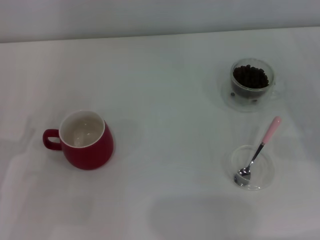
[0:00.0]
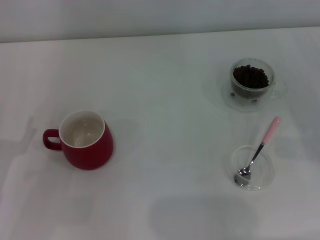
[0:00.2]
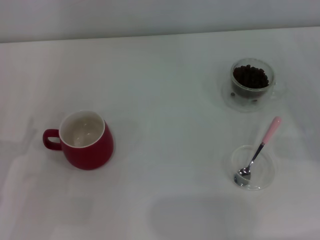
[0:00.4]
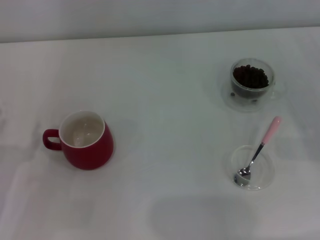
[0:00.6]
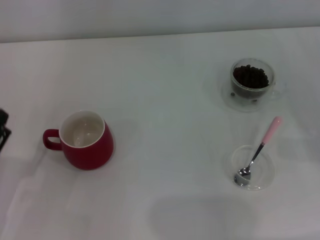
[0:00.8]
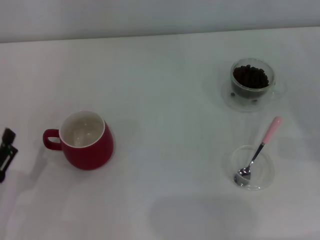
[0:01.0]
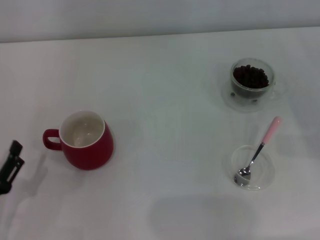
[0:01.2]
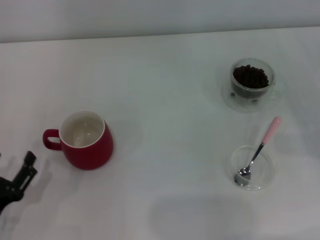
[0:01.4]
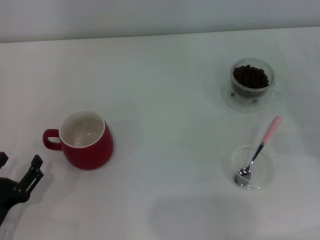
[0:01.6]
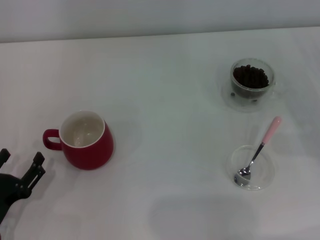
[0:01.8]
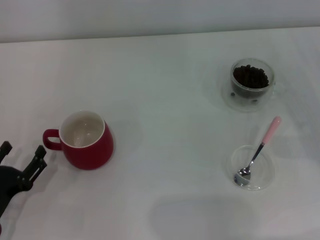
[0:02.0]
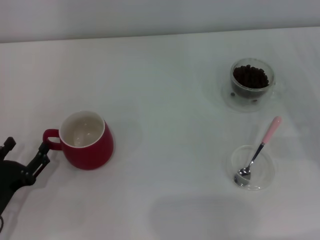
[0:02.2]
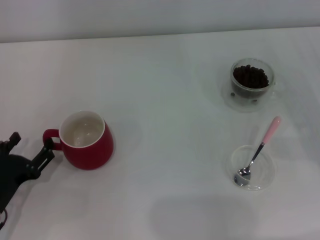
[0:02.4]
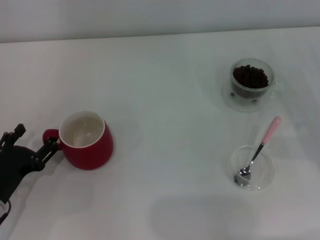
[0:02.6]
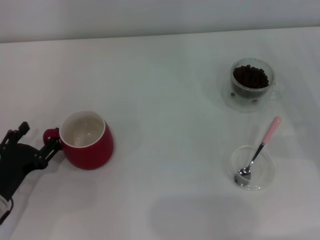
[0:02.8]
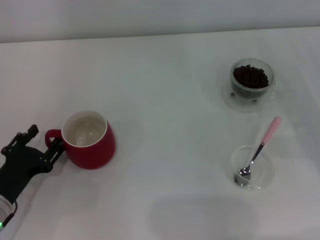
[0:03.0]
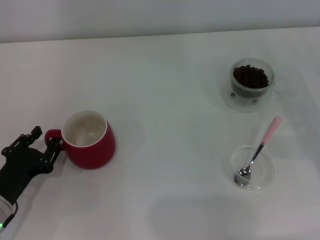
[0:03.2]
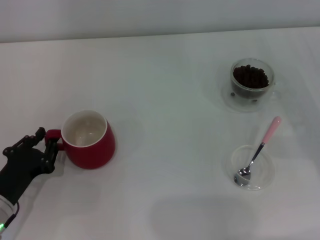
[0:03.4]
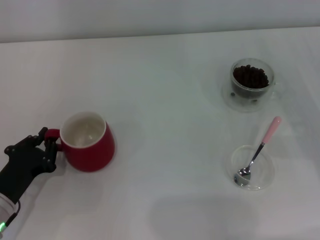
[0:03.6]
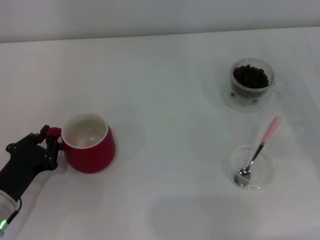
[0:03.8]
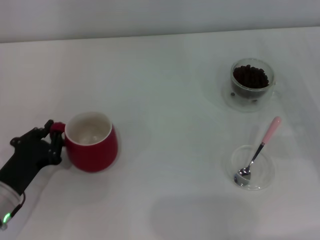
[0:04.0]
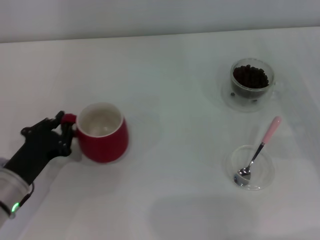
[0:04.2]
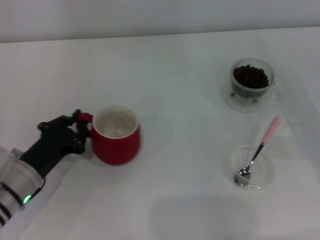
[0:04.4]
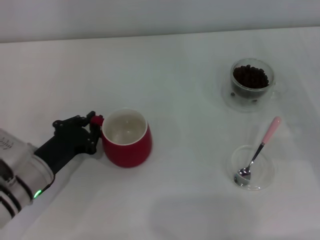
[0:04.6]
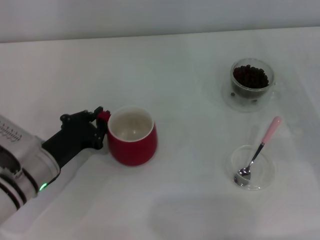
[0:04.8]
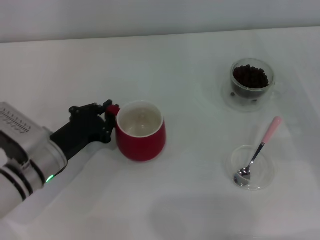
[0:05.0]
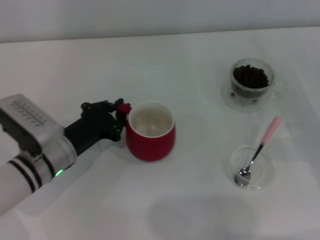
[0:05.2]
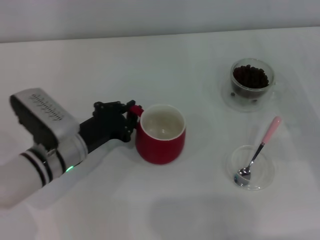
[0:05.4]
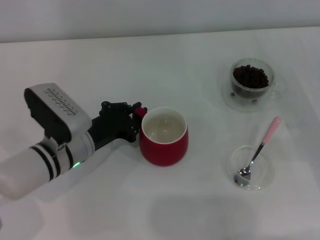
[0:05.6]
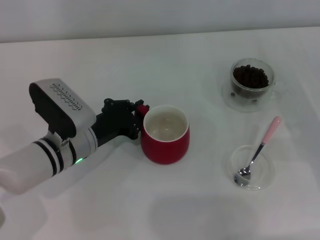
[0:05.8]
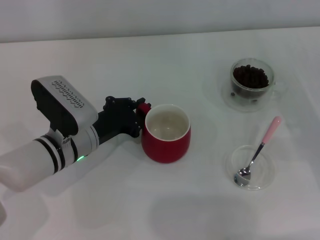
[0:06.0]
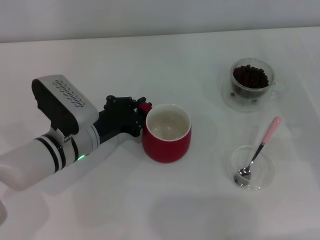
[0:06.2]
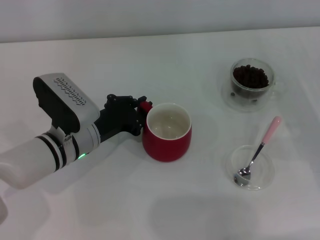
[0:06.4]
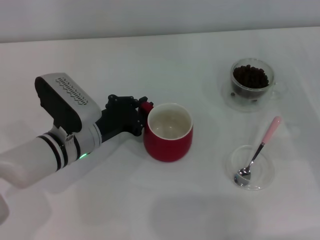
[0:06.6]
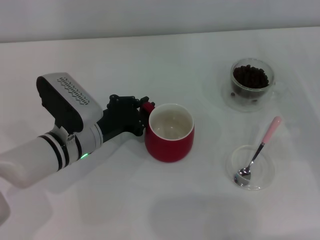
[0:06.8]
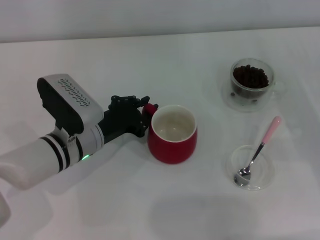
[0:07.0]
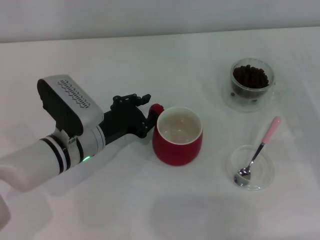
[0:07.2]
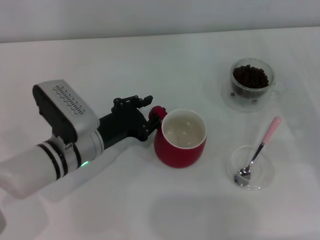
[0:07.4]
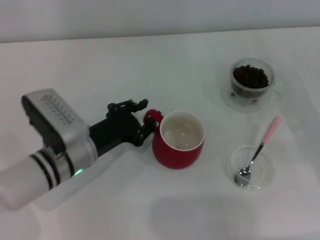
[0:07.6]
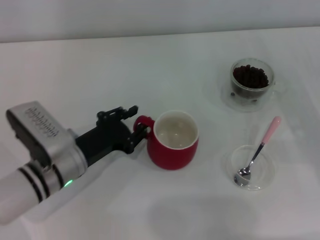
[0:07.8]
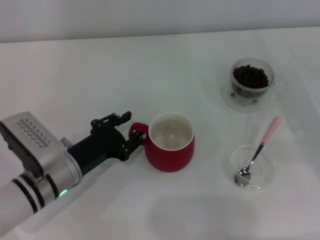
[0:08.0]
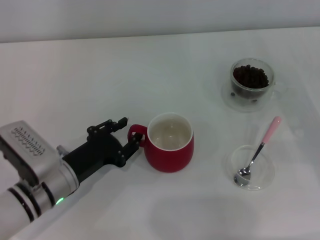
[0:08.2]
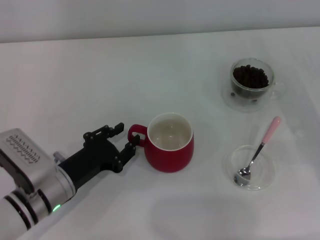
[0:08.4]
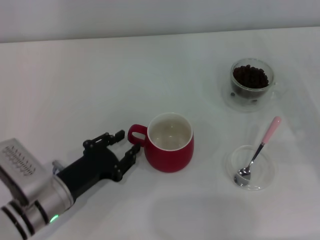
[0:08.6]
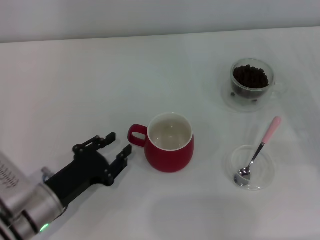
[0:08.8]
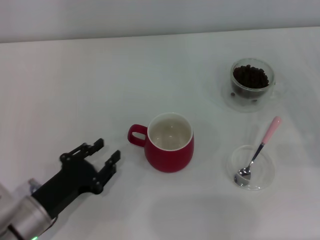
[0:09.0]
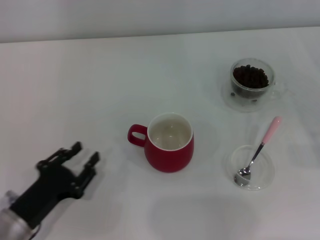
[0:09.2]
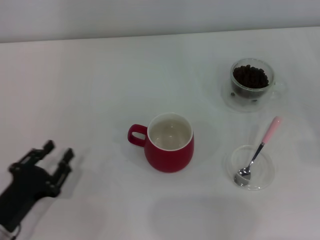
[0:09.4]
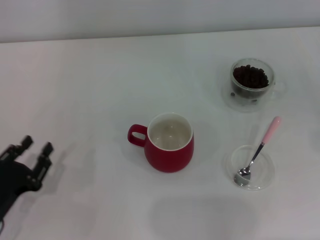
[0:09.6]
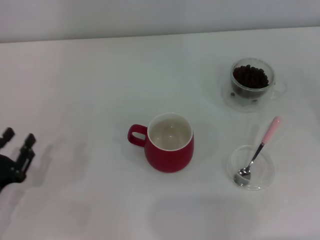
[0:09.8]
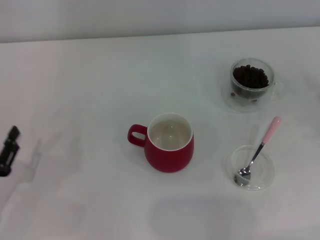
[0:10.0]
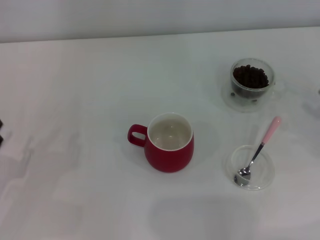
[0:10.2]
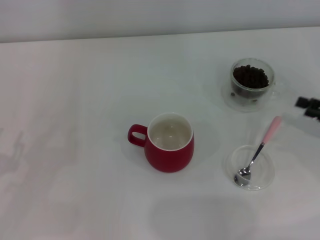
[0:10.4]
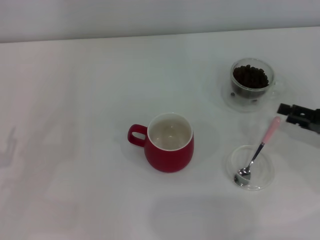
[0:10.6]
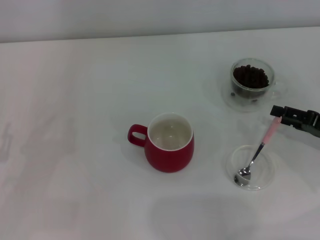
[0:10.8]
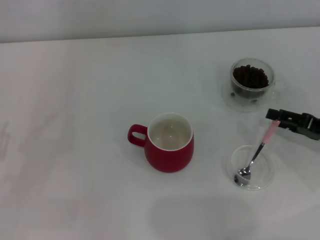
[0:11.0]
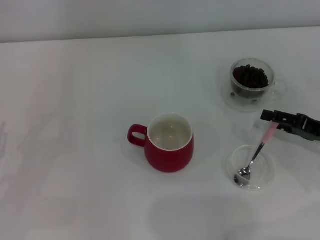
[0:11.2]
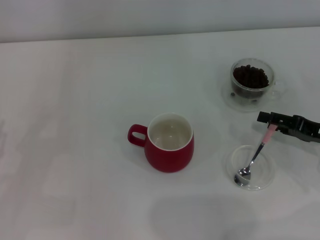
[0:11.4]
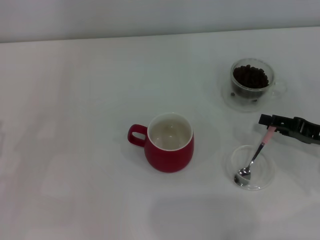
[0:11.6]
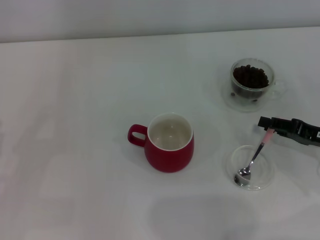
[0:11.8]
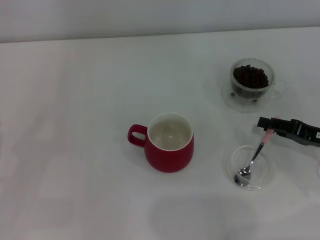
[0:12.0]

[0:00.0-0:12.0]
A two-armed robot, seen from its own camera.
Task of the whole recording: Use a pink spoon to take out the coffee beans from the glass and pour them into the red cup.
Step, 0:00.0 to 0:08.8: Move the cup to the center of view with the left gripper.
0:00.0 to 0:01.6: The left gripper heads downward and backward, covering roughly 10 cm.
0:01.6 to 0:03.0: The left gripper heads forward, covering approximately 5 cm.
0:03.0 to 0:04.4: The left gripper closes up.
0:04.4 to 0:06.0: The left gripper goes about 10 cm to the right and forward.
0:06.0 to 0:07.6: The left gripper opens its fingers.
0:07.6 to 0:09.0: The left gripper heads backward and to the left, covering about 10 cm.
0:09.0 to 0:10.4: The left gripper goes about 10 cm to the left.
0:10.4 to 0:12.0: The right gripper is displaced to the left by approximately 5 cm, and closes up.

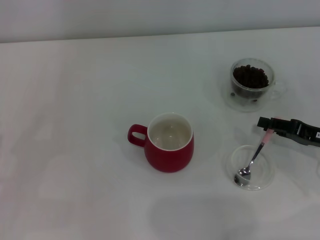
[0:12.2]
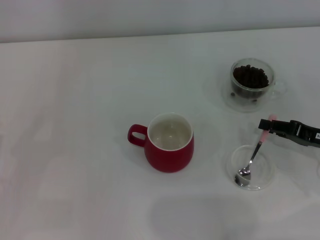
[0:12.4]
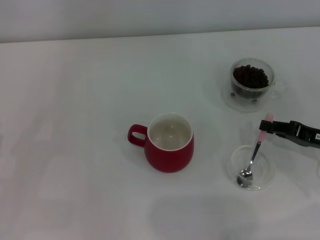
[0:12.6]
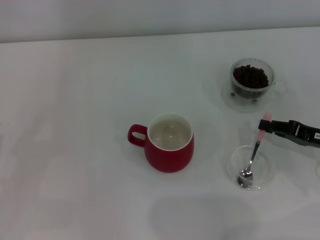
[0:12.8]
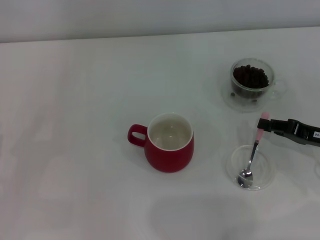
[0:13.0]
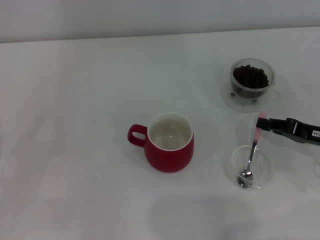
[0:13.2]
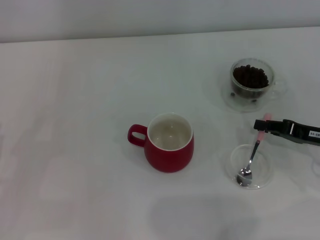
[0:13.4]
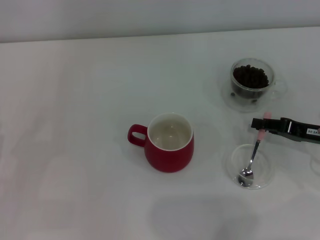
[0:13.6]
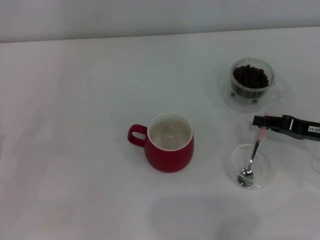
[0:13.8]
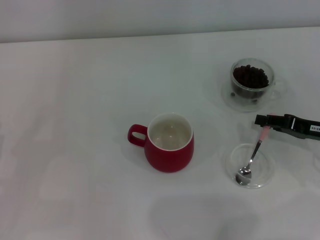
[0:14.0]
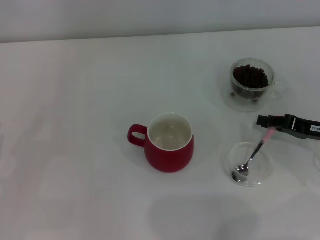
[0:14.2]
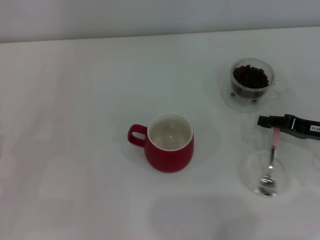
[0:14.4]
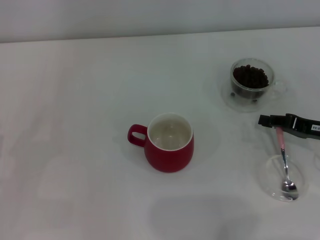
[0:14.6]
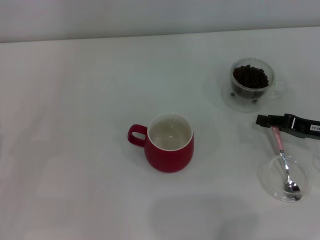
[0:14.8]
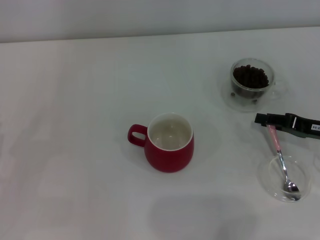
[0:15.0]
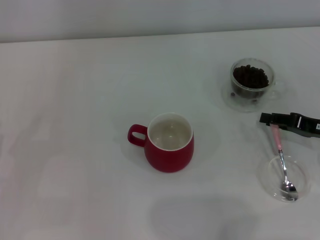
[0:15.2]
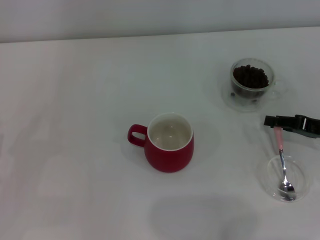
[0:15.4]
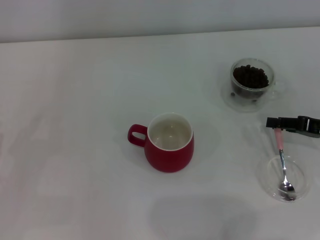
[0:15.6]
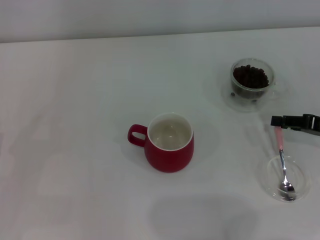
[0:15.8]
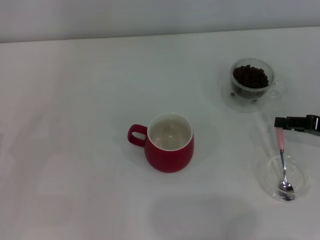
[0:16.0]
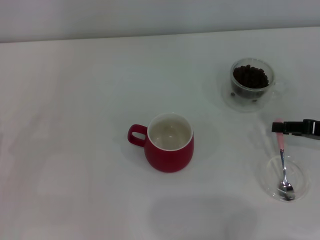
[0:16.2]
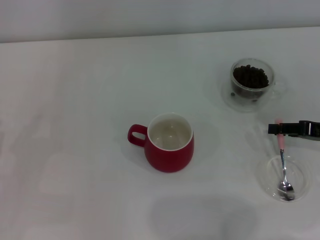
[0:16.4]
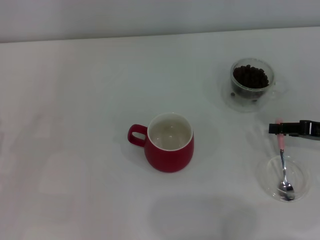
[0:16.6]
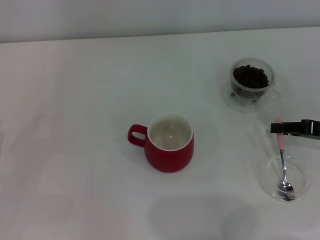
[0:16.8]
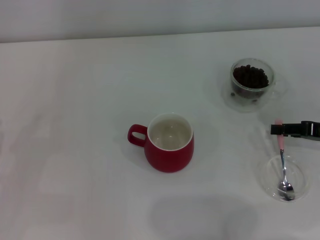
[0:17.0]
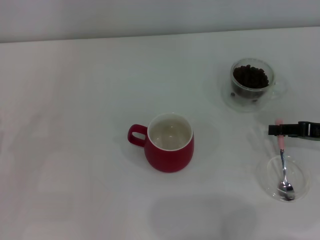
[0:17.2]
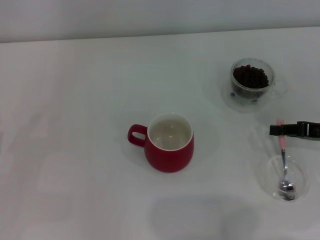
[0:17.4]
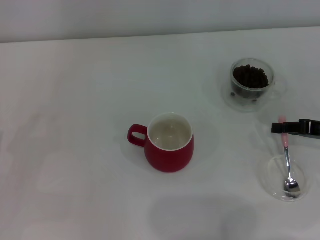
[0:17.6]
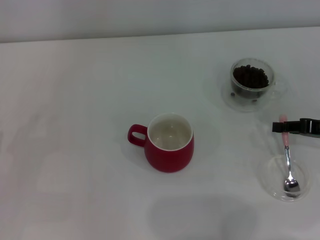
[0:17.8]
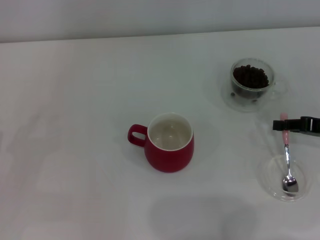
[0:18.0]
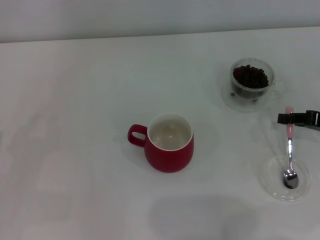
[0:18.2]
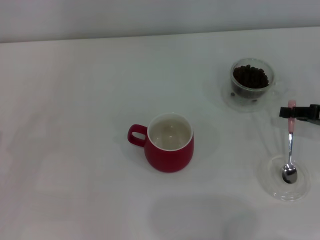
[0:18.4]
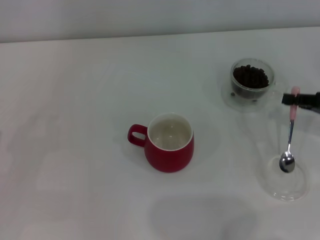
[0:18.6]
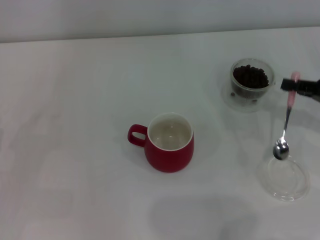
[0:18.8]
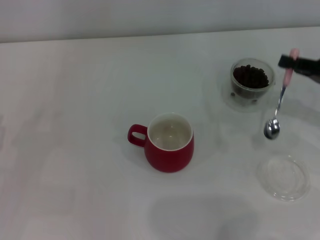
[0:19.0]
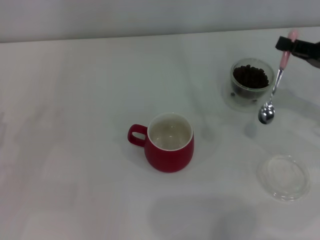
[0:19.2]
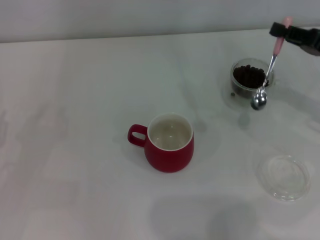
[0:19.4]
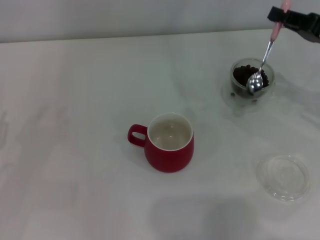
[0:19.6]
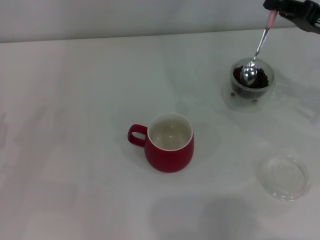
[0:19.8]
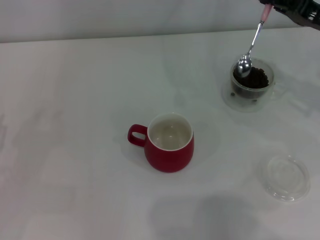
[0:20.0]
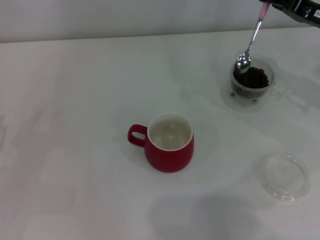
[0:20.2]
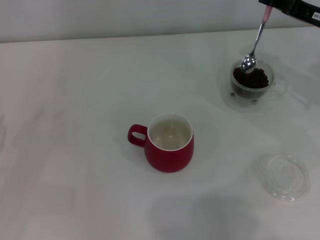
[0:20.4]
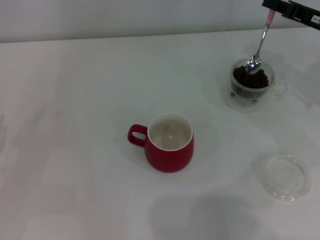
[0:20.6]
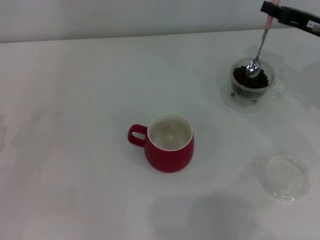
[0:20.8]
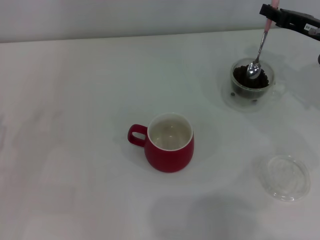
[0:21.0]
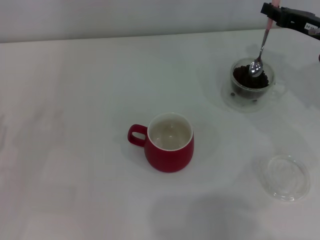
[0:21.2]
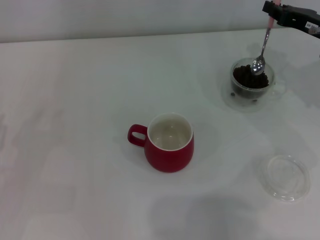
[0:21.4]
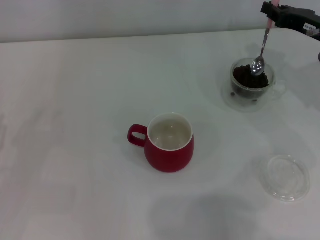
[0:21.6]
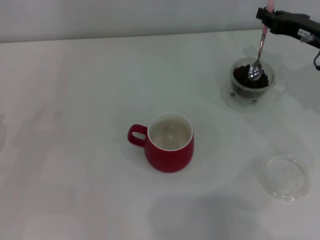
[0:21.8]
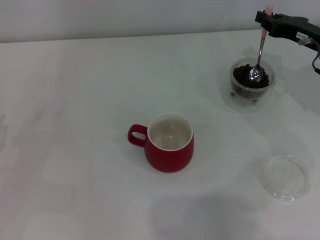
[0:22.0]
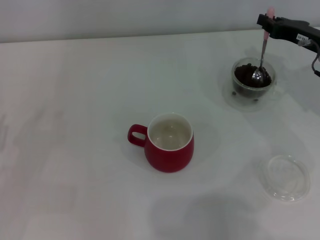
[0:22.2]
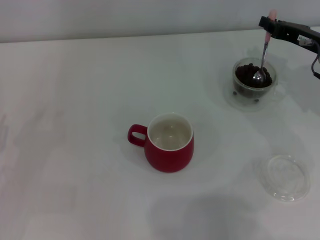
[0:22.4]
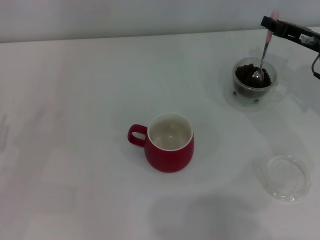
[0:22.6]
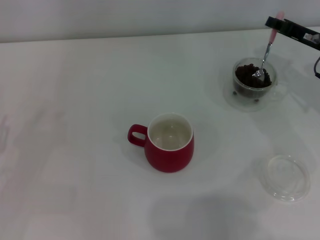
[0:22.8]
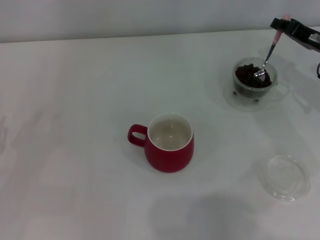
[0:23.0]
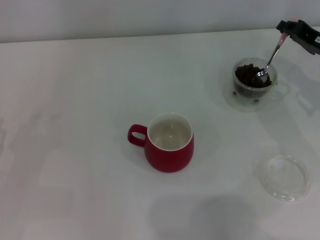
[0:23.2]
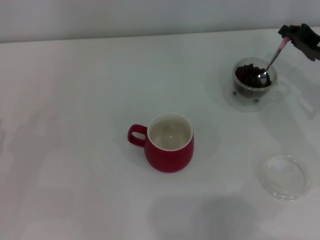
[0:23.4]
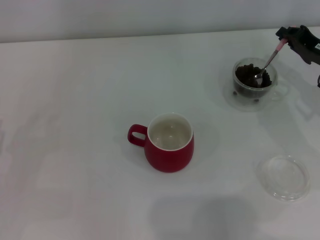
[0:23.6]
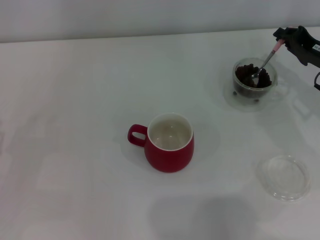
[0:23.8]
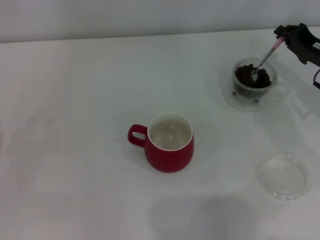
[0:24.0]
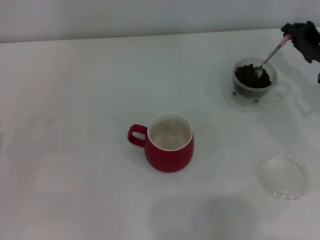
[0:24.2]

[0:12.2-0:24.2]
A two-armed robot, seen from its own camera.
Task of the whole recording: Use a pink spoon to take out the coffee beans from the glass and pour them into the red cup.
Step, 0:12.2 to 0:18.8: Pick up the spoon with the right gripper.
0:12.2 to 0:13.8: The grippers stay close to where they were, moving slightly.
0:13.8 to 0:15.2: The two grippers keep their place.
0:15.2 to 0:16.6: The grippers stay close to where they were, moving slightly.
0:16.6 to 0:18.2: The right gripper closes up.
0:18.2 to 0:19.8: The right gripper travels upward and forward by roughly 10 cm.
0:21.2 to 0:22.6: The grippers move only a little.
